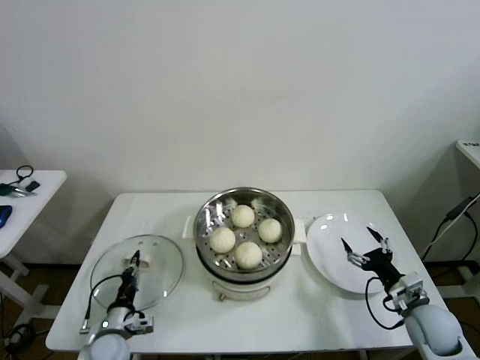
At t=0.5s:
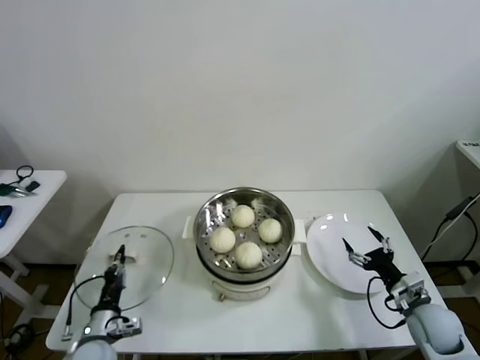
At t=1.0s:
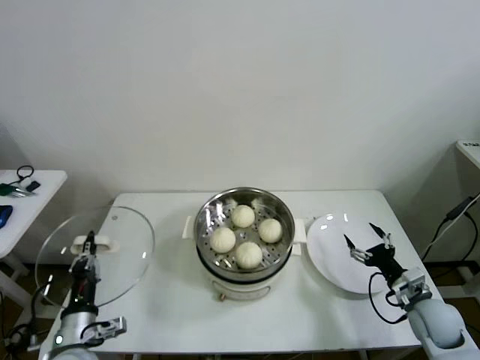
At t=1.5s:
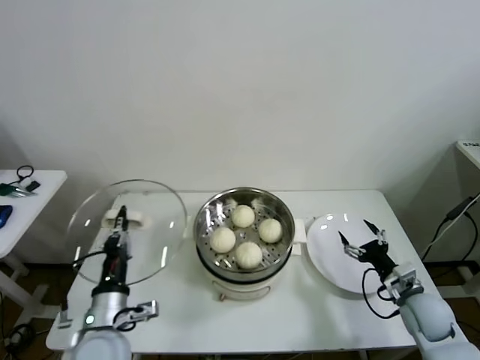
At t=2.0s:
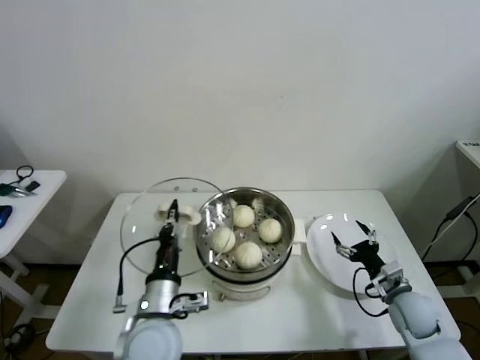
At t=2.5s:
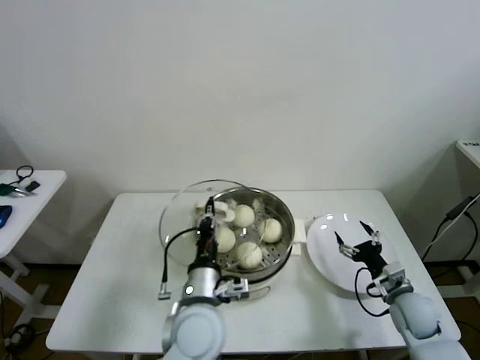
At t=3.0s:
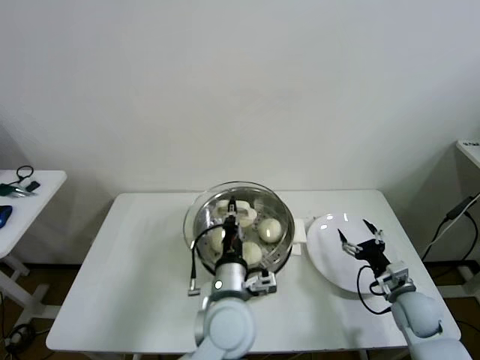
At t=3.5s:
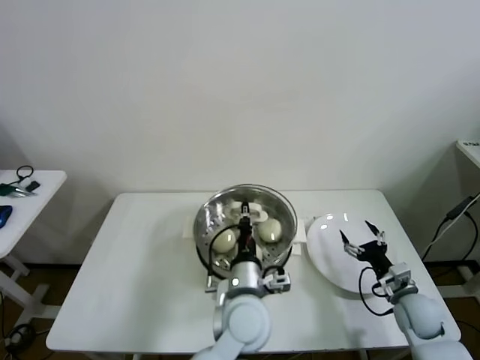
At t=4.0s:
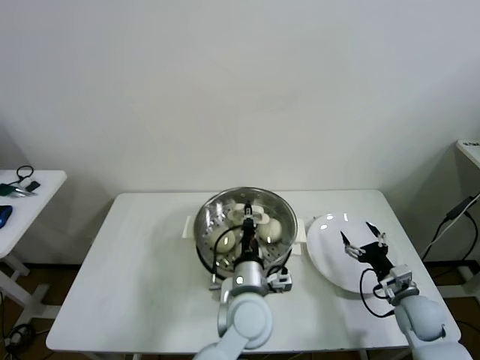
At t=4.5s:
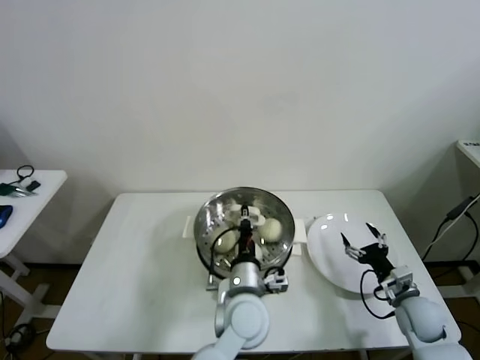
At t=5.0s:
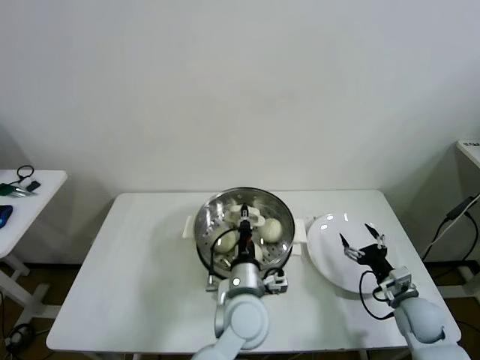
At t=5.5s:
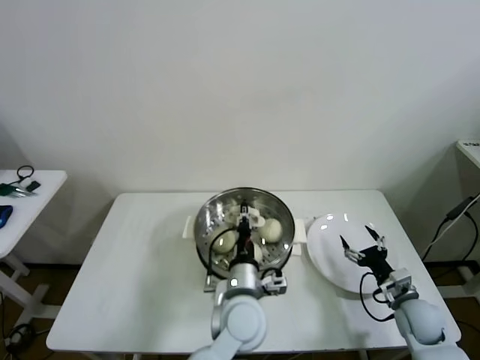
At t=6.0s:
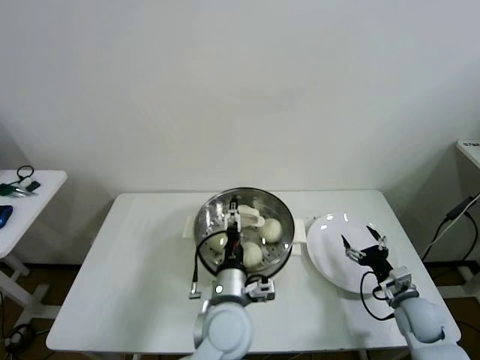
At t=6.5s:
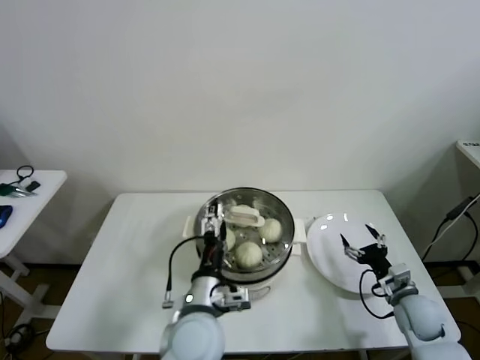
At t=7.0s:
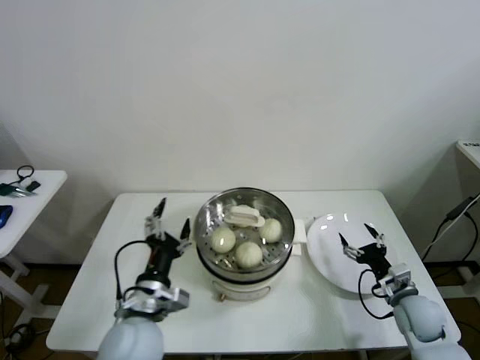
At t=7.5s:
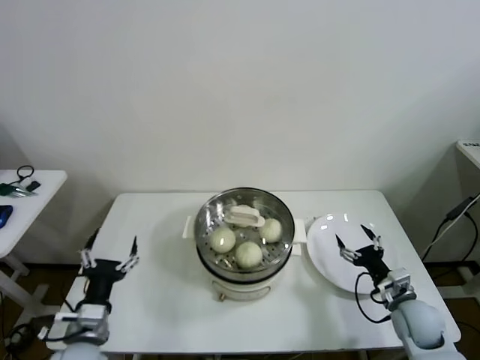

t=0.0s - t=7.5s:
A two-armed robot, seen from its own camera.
Task of the whole recording: take steamed baozi put them in steamer then cover it.
Step, t=0.5s - t=6.0s: Place the pot lid on the steamer with left gripper.
t=0.0s - t=2.0s: The left gripper is displaced upward and to the right by roughly 25 cm.
t=2.0s - t=4.0s: The left gripper moves to the right, approximately 15 cm.
t=4.0s - t=5.5s: Both grippers stay put.
t=5.5s - t=7.5s: The left gripper heads to the left, covering about 30 cm, and opens up.

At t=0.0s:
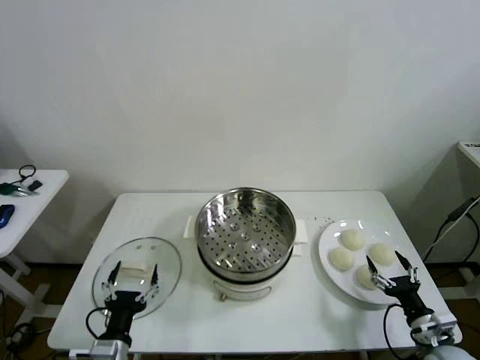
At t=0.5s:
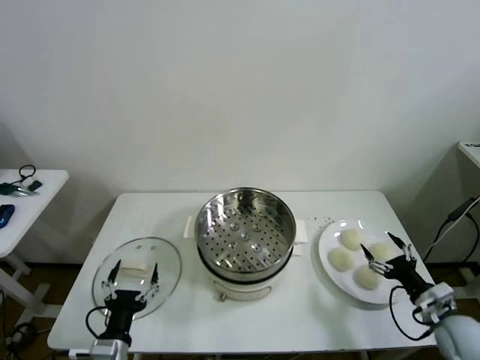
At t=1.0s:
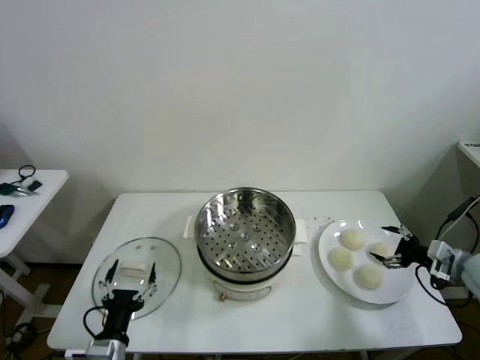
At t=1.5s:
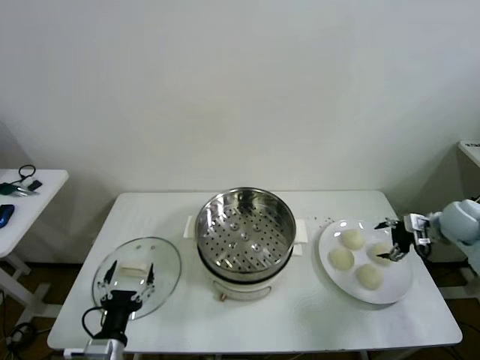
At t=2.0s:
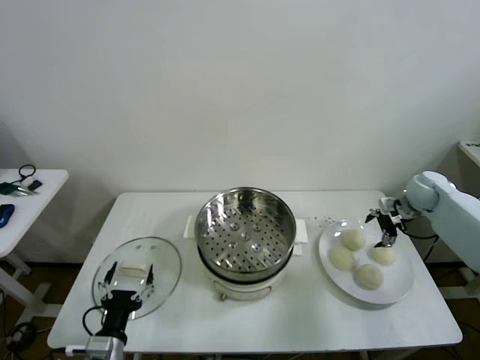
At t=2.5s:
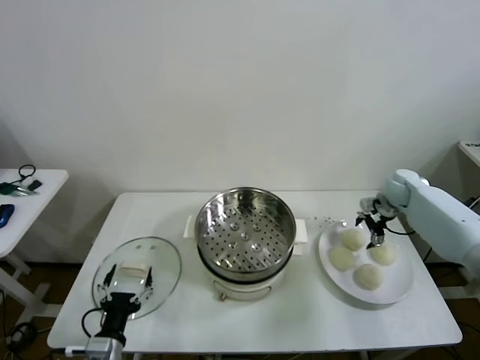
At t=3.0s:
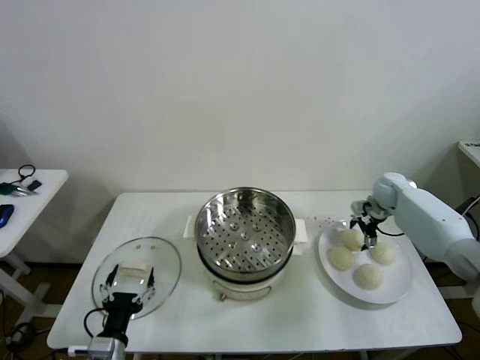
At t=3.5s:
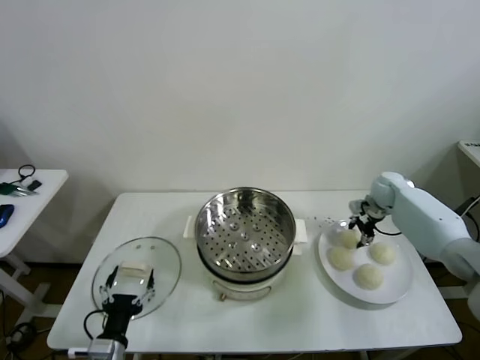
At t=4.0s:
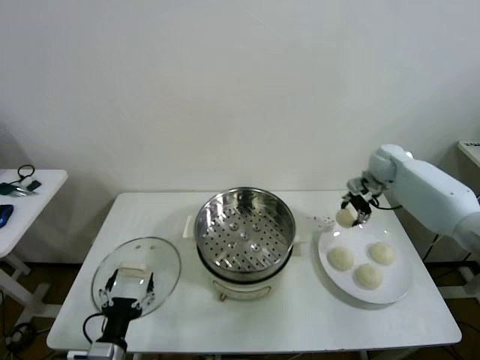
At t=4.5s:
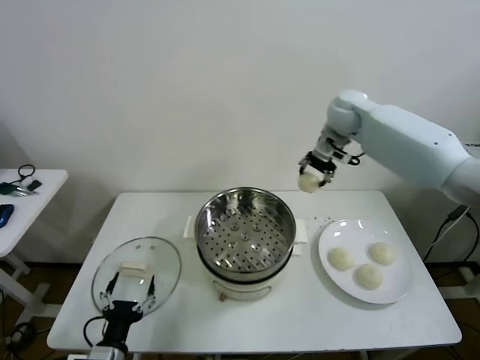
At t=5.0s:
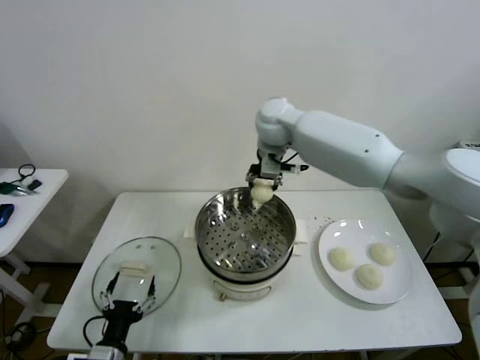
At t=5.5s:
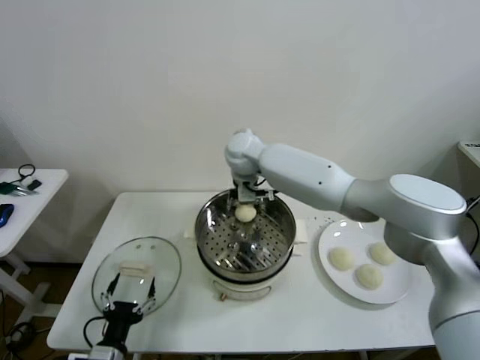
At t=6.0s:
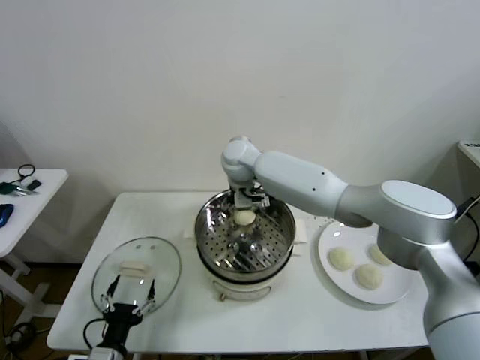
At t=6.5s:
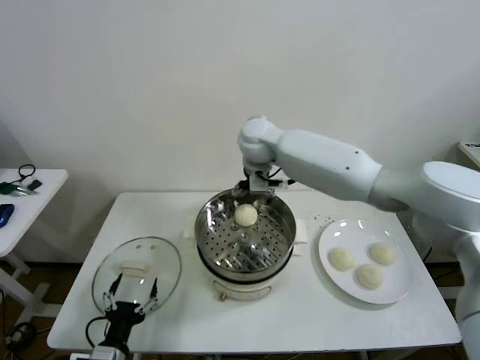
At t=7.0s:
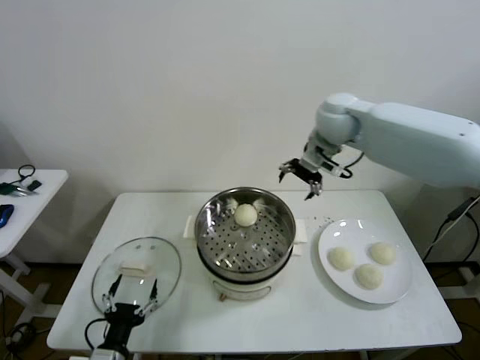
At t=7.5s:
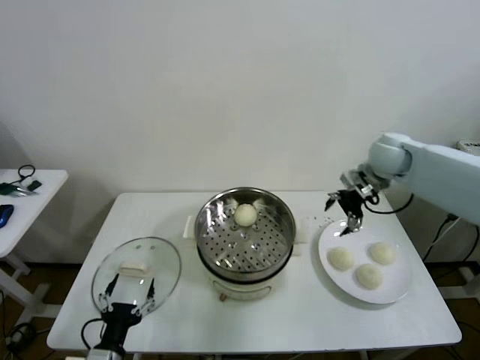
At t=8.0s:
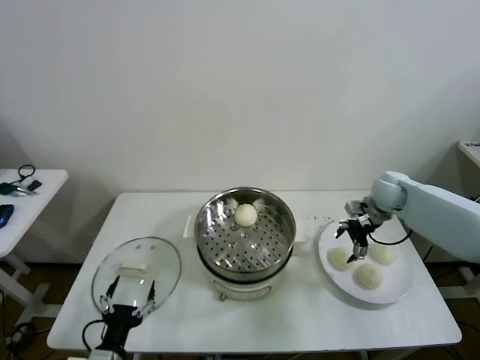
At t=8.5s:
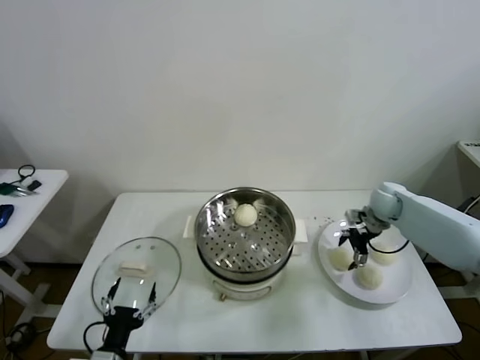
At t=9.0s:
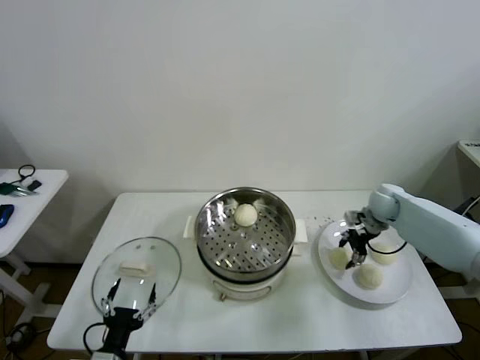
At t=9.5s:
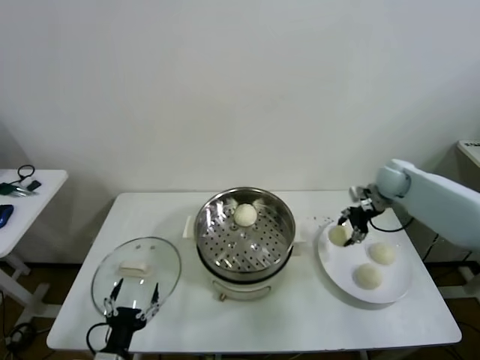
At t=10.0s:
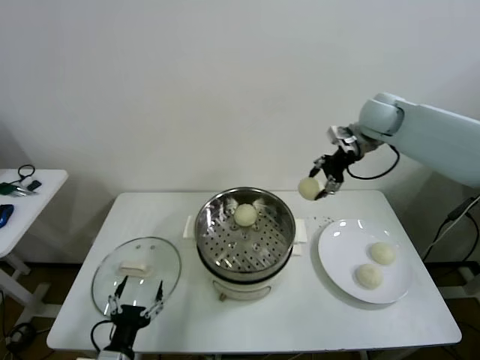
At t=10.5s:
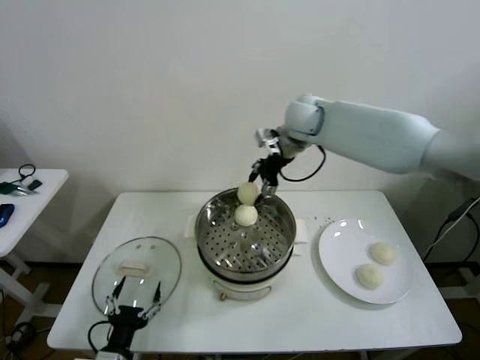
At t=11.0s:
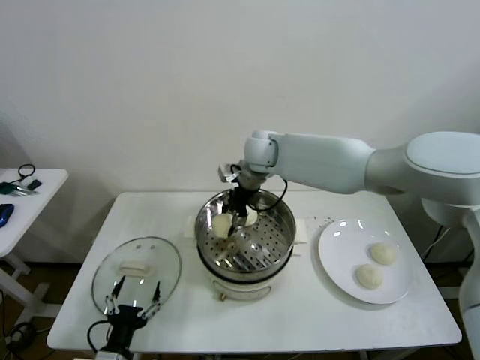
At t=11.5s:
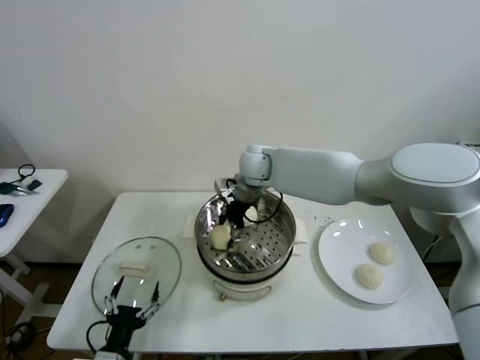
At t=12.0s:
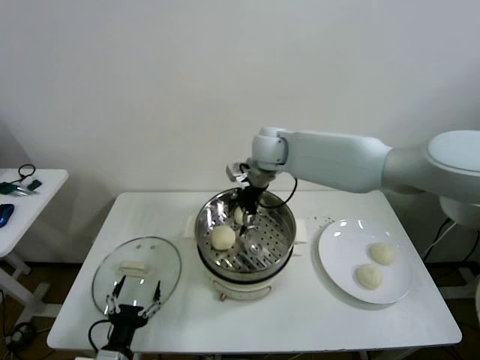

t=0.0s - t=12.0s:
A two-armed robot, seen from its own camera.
Task of the whole recording: take steamed baozi put them in steamer then cover it.
Step, t=0.0s - t=3.0s: Grasp the baozi in the plate with right gripper.
Step, t=4.0s - t=6.0s: Place the baozi on the steamer with right gripper.
Step, t=6.5s - t=9.0s: Grasp the baozi in the plate with right gripper.
Step, t=9.5s - t=11.5s: Place the baozi on the steamer with right gripper.
t=2.0s - t=4.0s: The right gripper shifts about 15 cm to the left, upward and forward, and closes.
t=4.0s - t=6.0s: The right gripper travels to the left by roughly 35 cm, and opens its fingers.
t=6.0s - t=8.0s: The right gripper shifts roughly 40 cm to the right.
t=8.0s - t=10.0s: The right gripper travels upward and to the left by approximately 25 cm, and closes.
t=10.0s - t=12.0s: The right gripper shifts roughly 20 cm to the left, and opens.

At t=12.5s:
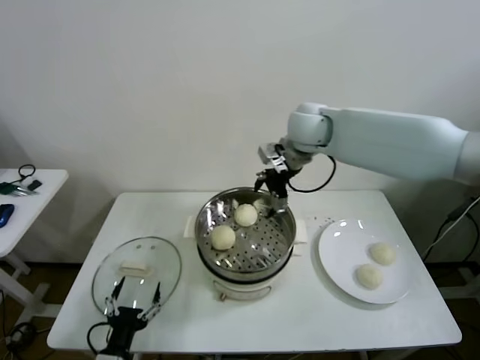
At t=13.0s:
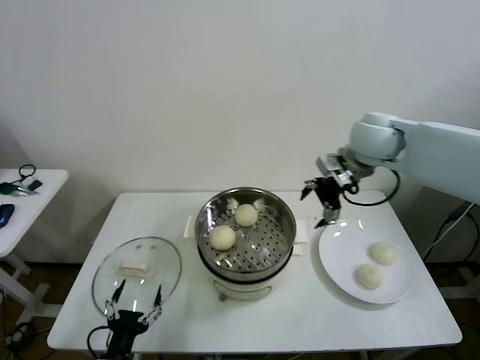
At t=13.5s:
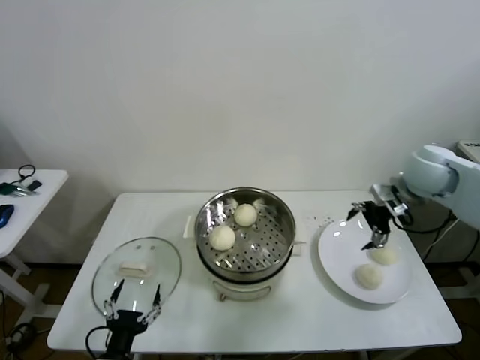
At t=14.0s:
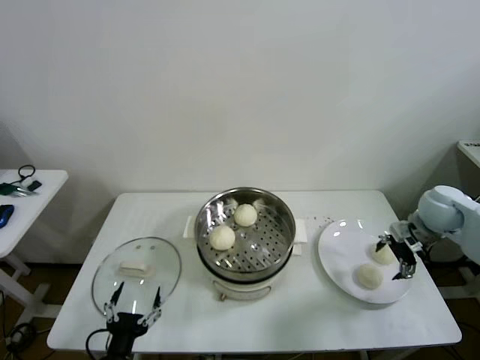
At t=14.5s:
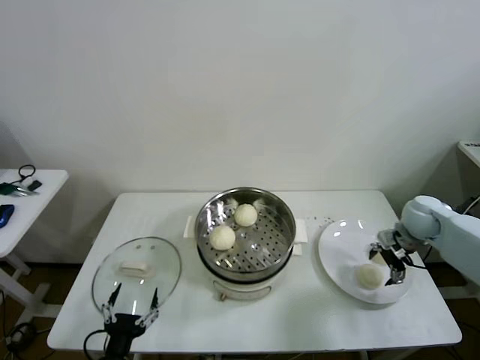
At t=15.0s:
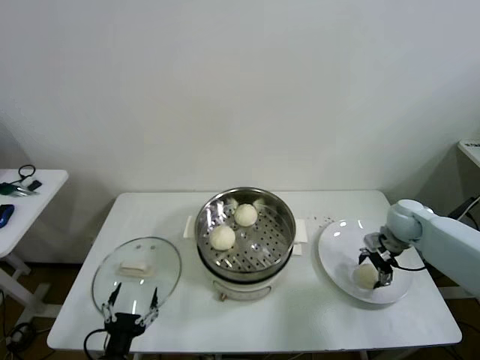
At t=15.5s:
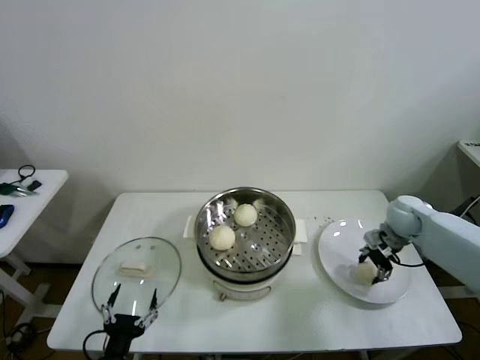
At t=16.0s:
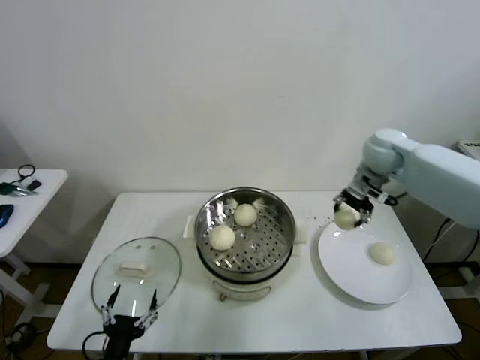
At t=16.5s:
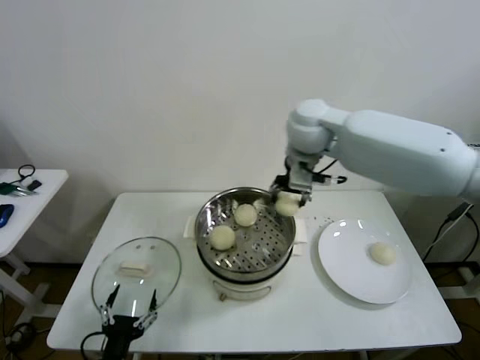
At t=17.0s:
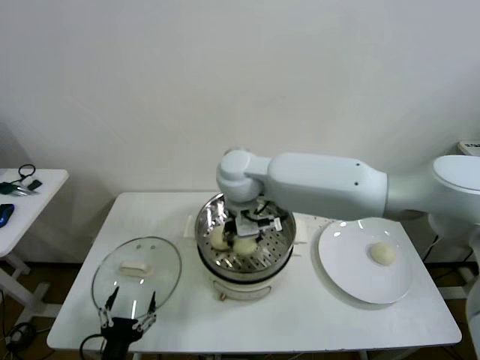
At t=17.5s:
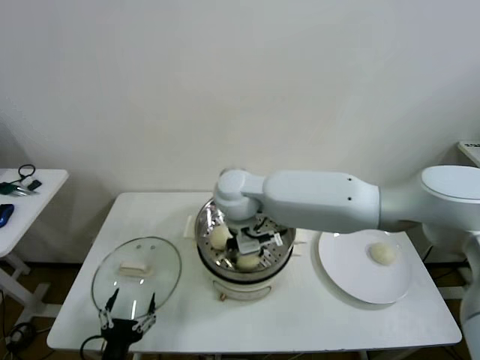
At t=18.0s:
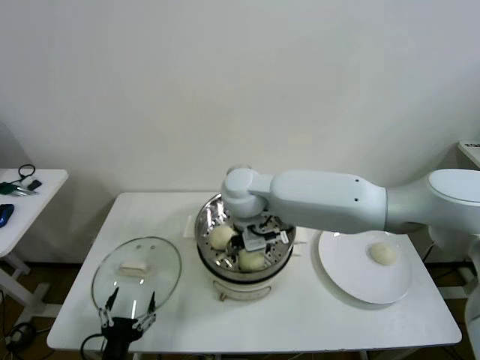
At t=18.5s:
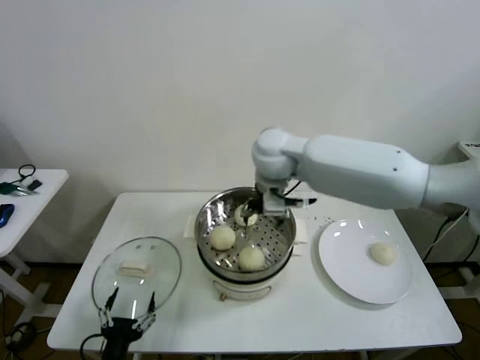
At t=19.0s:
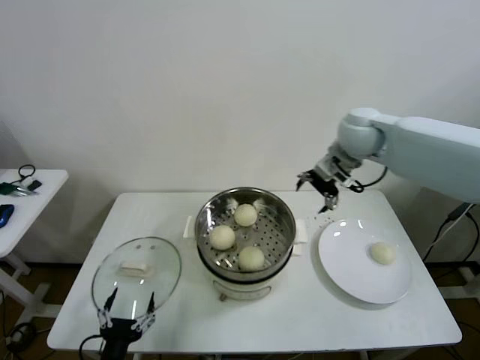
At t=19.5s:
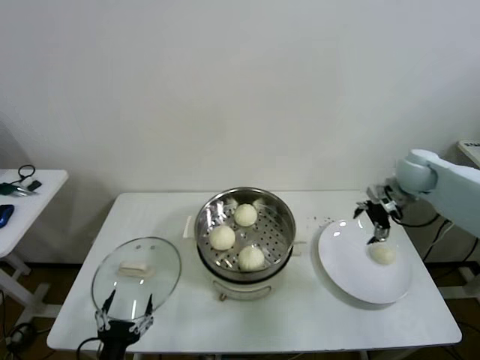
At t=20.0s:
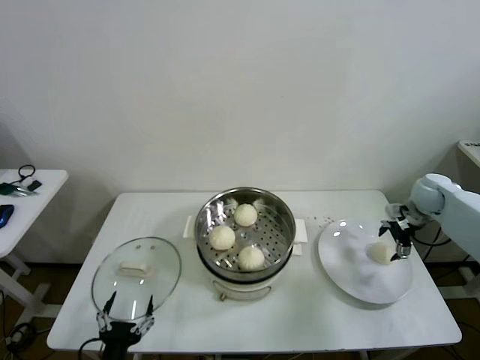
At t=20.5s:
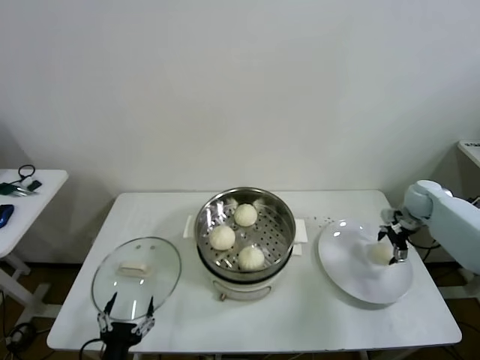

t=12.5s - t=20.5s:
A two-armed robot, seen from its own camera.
Task of the whole recording: take steamed baozi put them in steamer then cover it.
Step, t=12.5s - t=15.0s: Grasp the baozi in the plate with right gripper.
Step, t=15.5s - t=17.5s: Place the baozi on the steamer with right gripper.
t=12.5s - t=14.5s: The right gripper moves to the right and downward, about 35 cm.
t=14.5s - t=16.5s: The right gripper is displaced to the left and upward by about 40 cm, and closes its fingers.
t=16.5s - t=18.5s: The right gripper reaches roughly 10 cm to the left, then returns, and opens.
t=18.5s - t=20.5s: The right gripper is displaced to the right and downward by roughly 50 cm.
